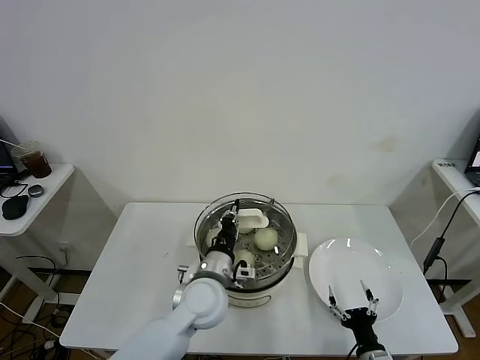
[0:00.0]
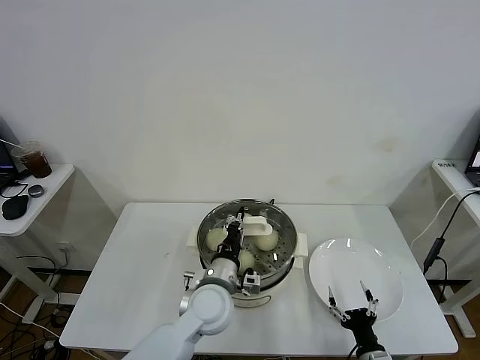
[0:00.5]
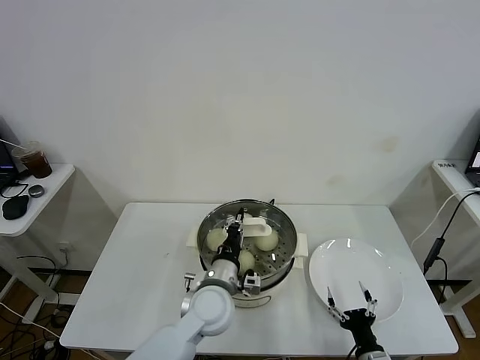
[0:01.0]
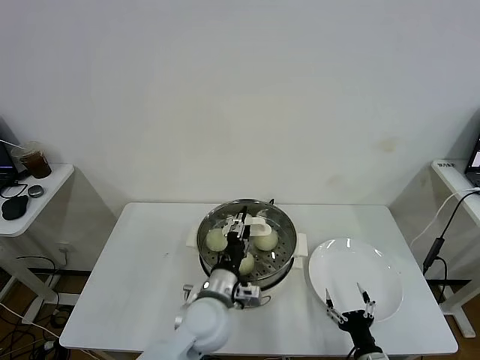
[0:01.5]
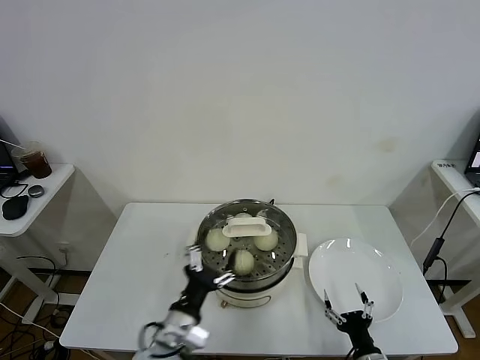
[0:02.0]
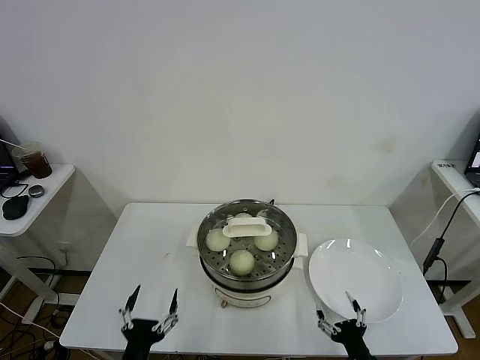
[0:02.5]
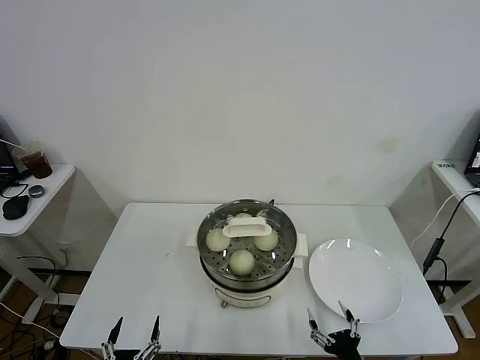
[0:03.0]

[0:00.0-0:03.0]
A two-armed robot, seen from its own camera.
Task of the whole recording: take steamed baozi put them in steamer.
0:00.0 to 0:01.5: The left gripper opens its fingers.
0:01.5 to 0:03.0: The left gripper travels backward, to the left and downward by approximately 30 cm, and opens its fingers, while the right gripper moves some 5 cm.

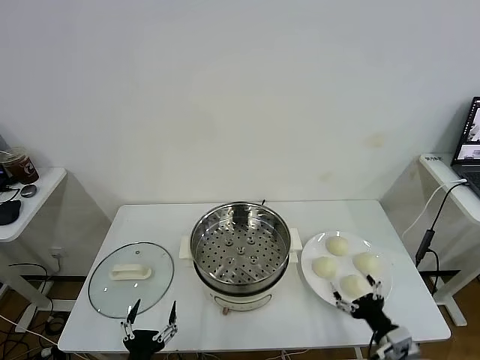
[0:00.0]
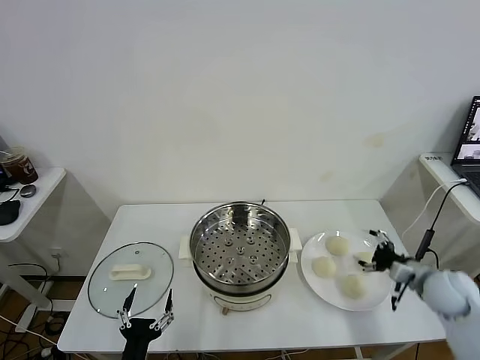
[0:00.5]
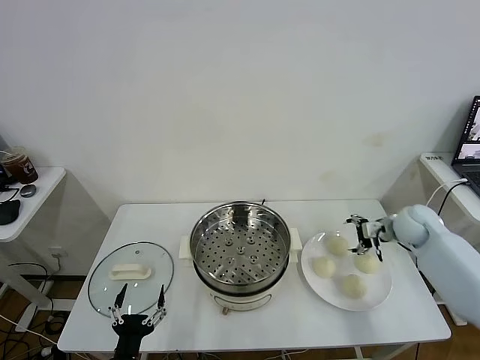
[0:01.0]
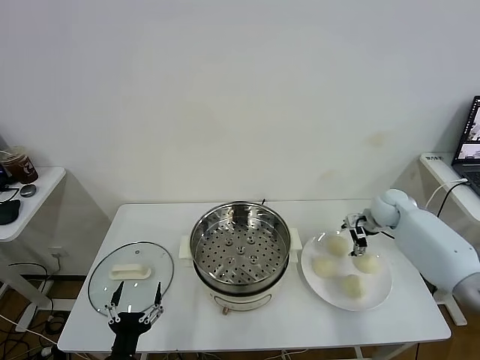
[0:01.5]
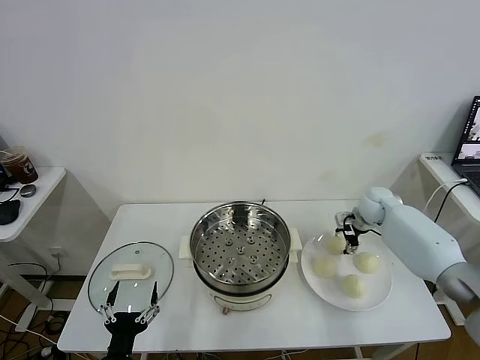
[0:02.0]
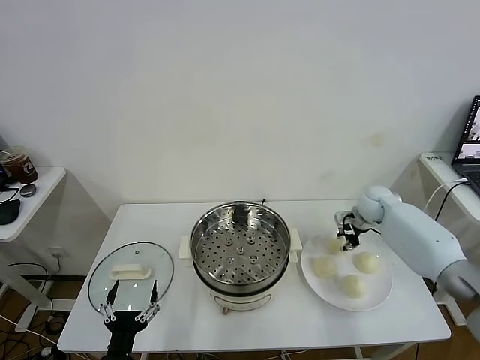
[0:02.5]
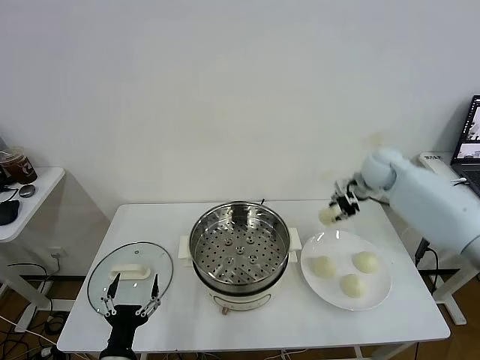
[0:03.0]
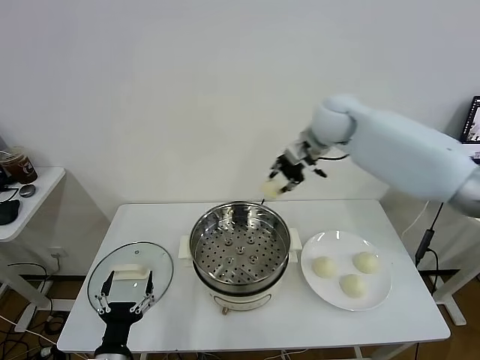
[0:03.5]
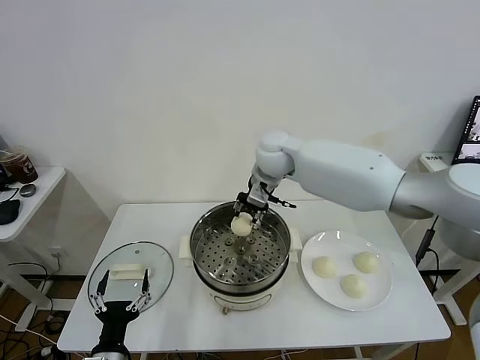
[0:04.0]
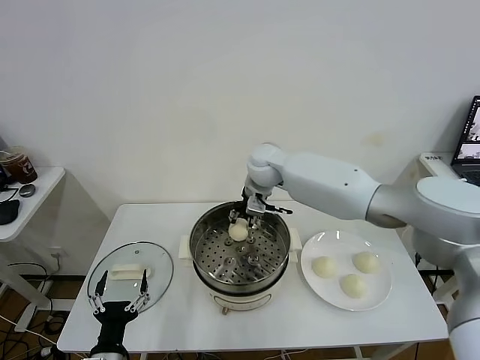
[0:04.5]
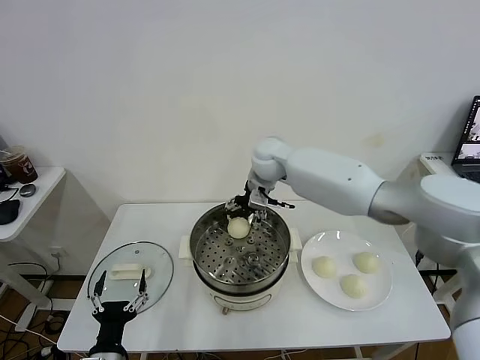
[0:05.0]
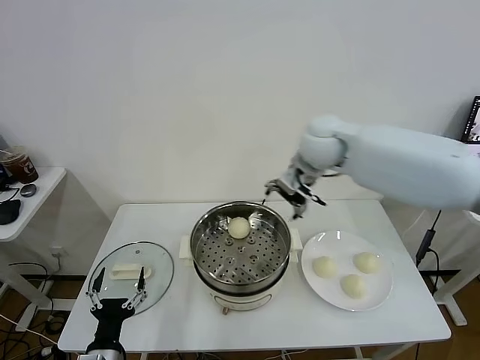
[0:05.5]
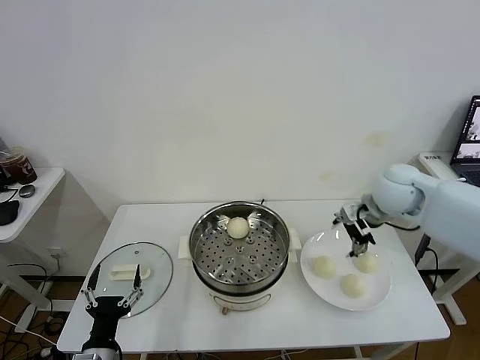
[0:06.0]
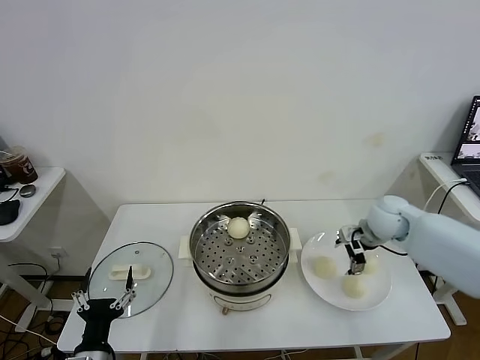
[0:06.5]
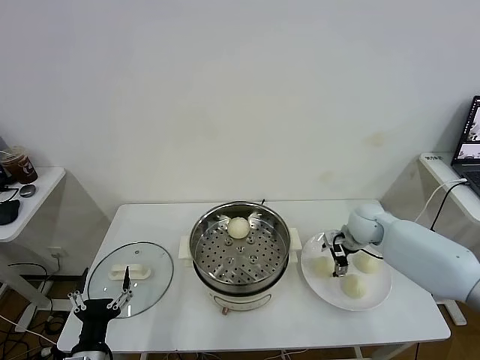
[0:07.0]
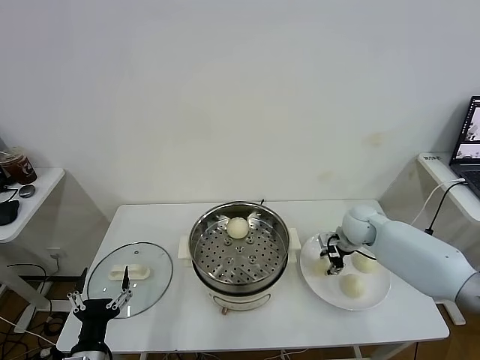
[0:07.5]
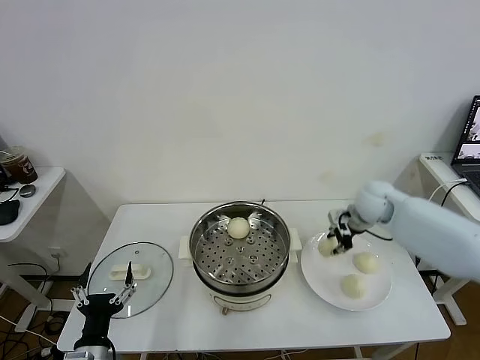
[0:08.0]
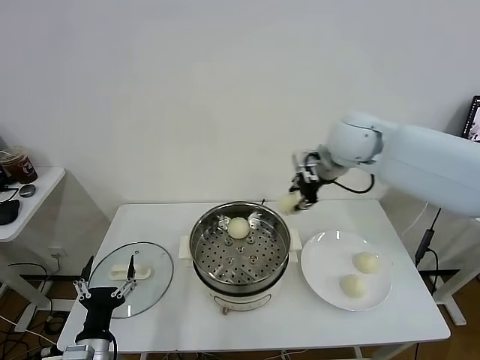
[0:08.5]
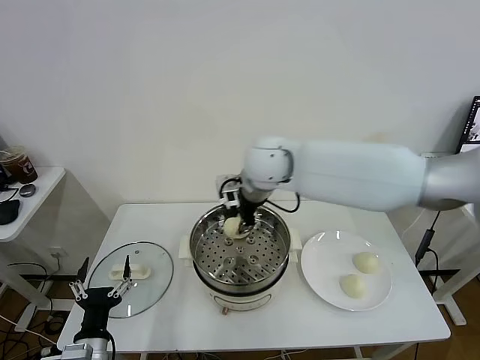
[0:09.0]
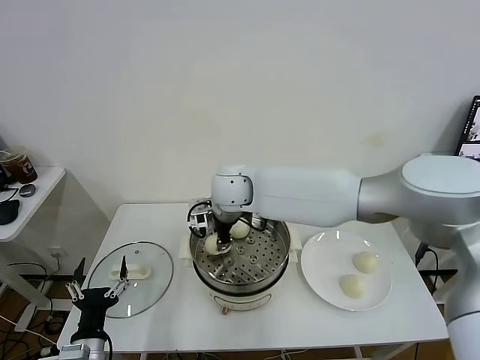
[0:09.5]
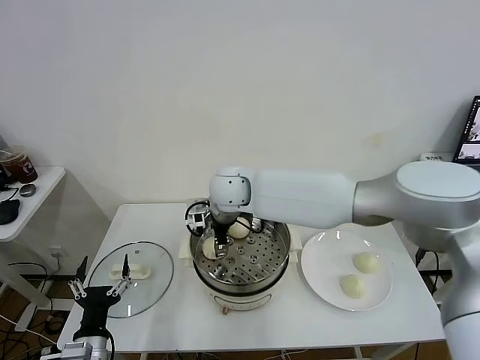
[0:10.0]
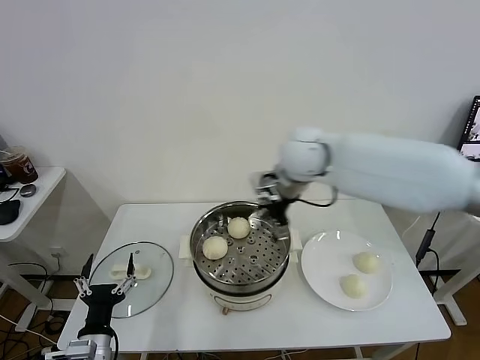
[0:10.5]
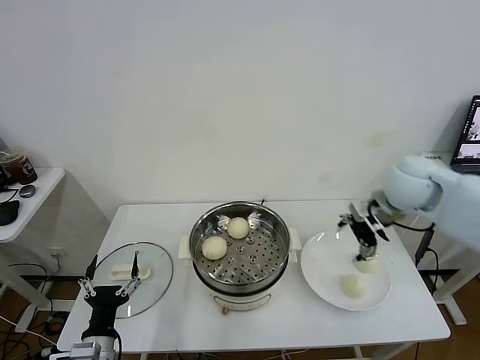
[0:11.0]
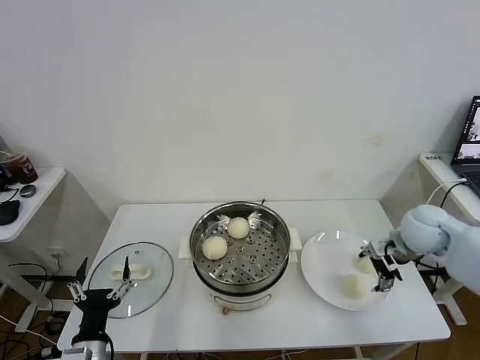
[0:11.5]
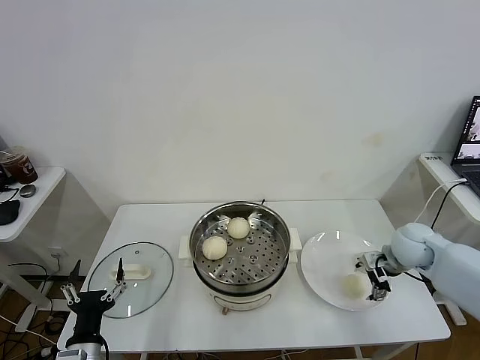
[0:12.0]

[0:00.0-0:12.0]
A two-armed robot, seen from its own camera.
Task of the whole recording: take steamed baozi put them in steamer.
Step, 0:00.0 to 0:02.0: Grasp the baozi in the plate with right gripper.
Step, 0:02.5 to 0:05.0: Place the baozi on the steamer with right gripper.
Step, 0:05.5 to 0:07.5: Grasp the baozi in the plate with right gripper.
Step, 0:08.0 to 0:10.0: Place the baozi on the steamer with right gripper.
0:02.0 to 0:04.0: The right gripper is displaced to the left and upward by approximately 35 cm, and closes up.
0:04.0 to 0:06.0: The right gripper goes about 25 cm to the right, and opens up.
0:06.0 to 0:08.0: The right gripper heads downward and forward, covering approximately 10 cm, and closes up.
0:08.0 to 0:10.0: The right gripper is displaced to the left by some 35 cm, and opens.
0:10.0 to 0:12.0: The right gripper shifts approximately 40 cm to the right, and opens.

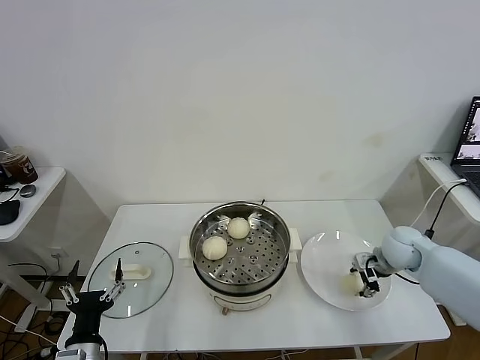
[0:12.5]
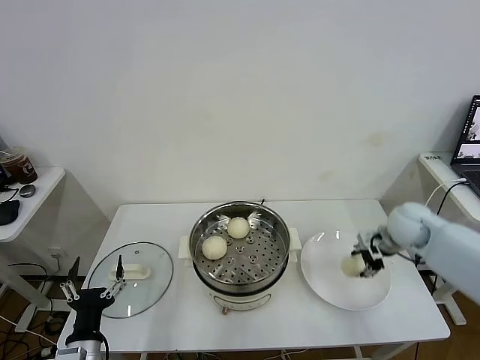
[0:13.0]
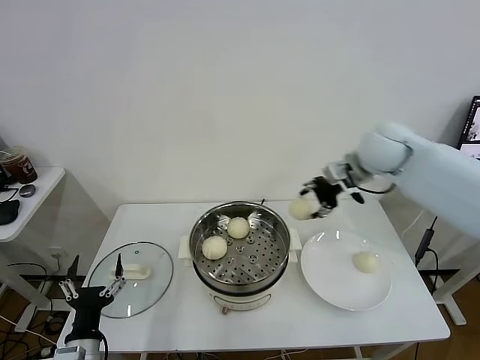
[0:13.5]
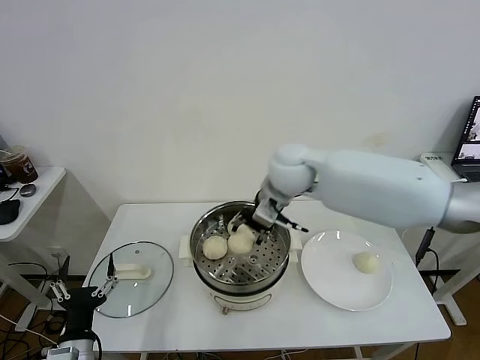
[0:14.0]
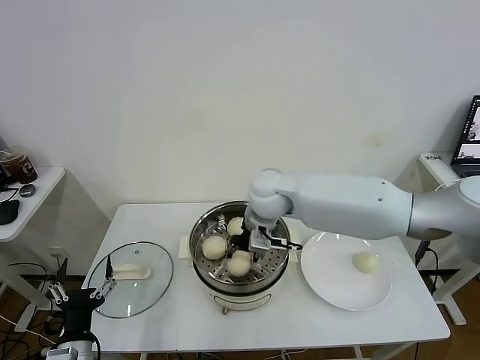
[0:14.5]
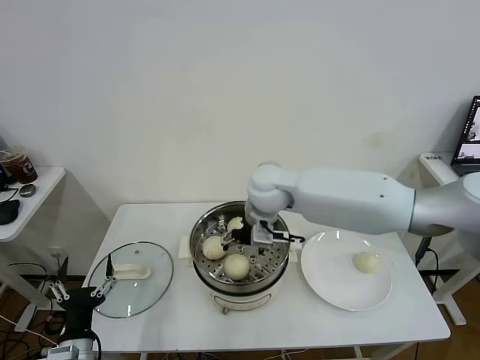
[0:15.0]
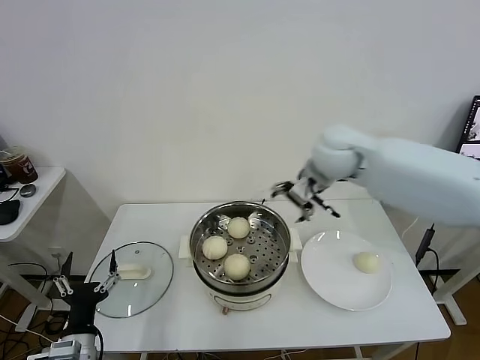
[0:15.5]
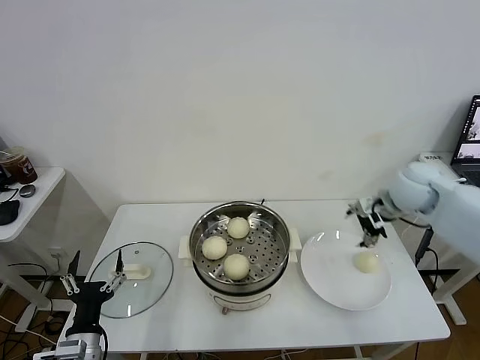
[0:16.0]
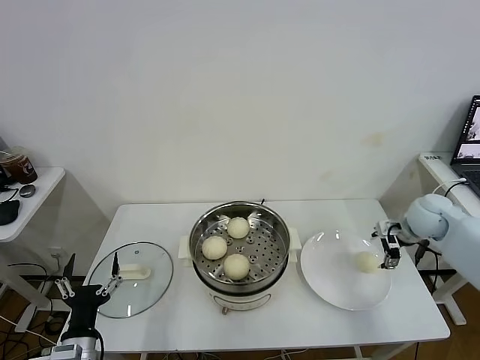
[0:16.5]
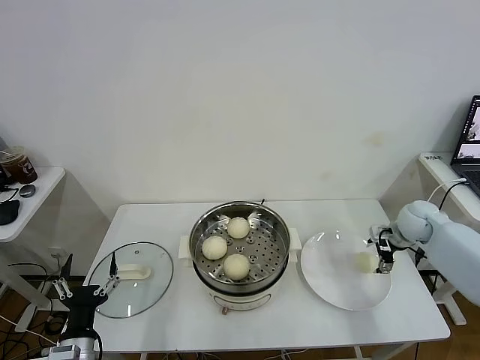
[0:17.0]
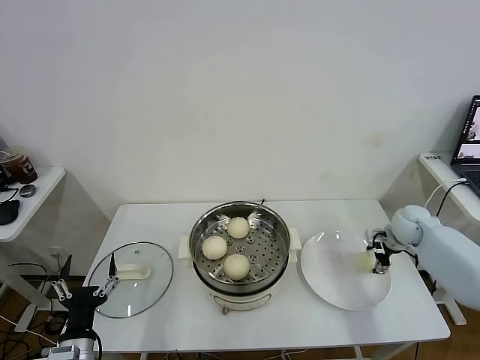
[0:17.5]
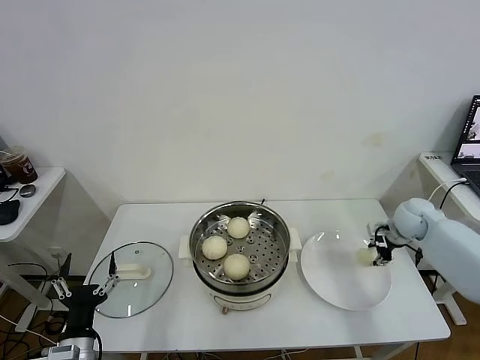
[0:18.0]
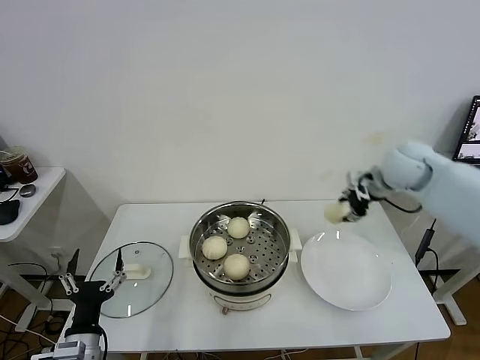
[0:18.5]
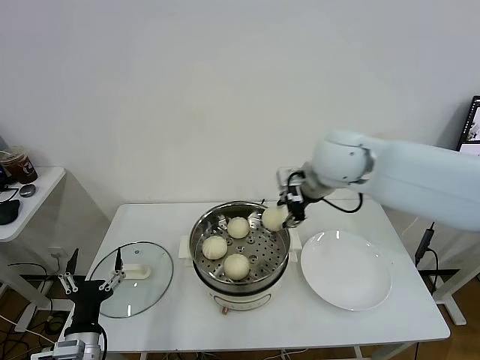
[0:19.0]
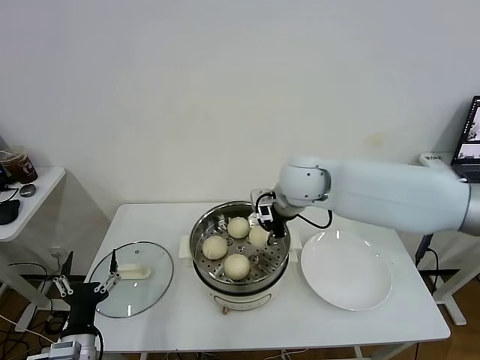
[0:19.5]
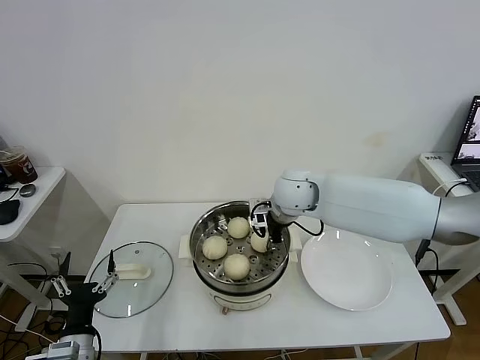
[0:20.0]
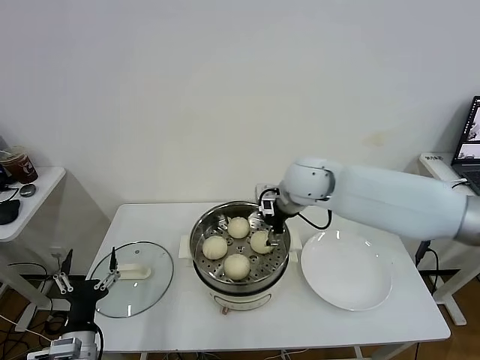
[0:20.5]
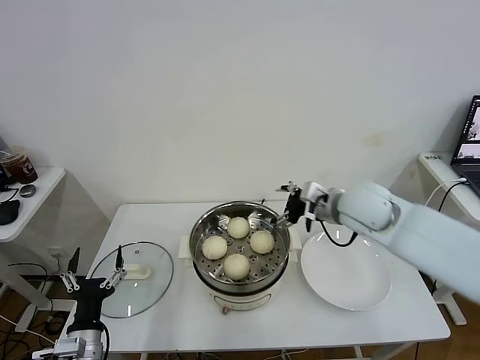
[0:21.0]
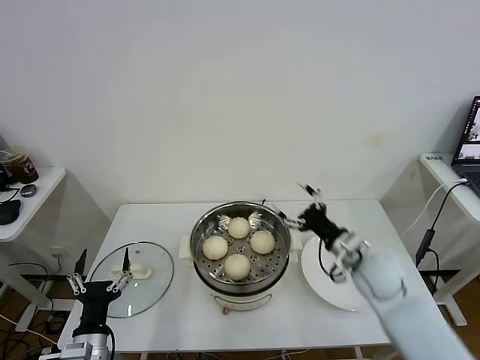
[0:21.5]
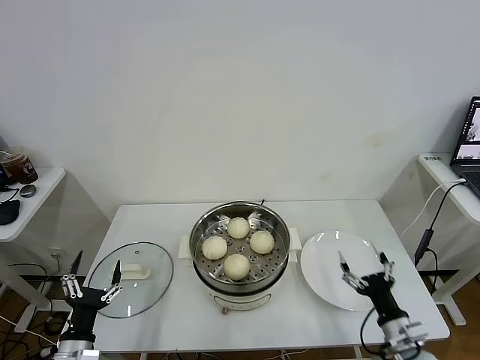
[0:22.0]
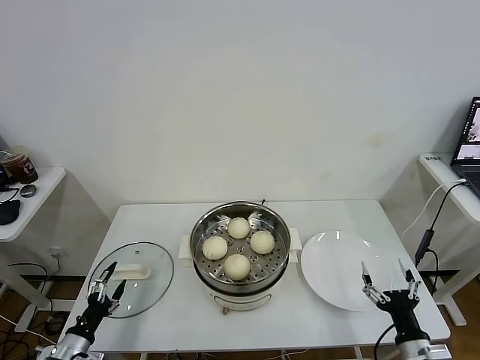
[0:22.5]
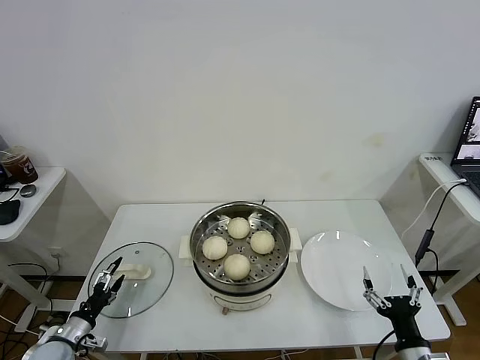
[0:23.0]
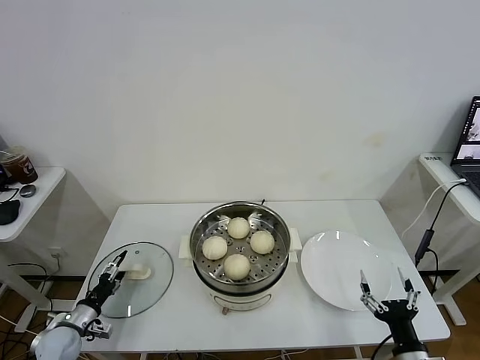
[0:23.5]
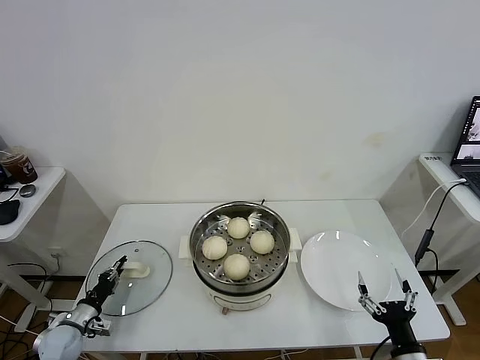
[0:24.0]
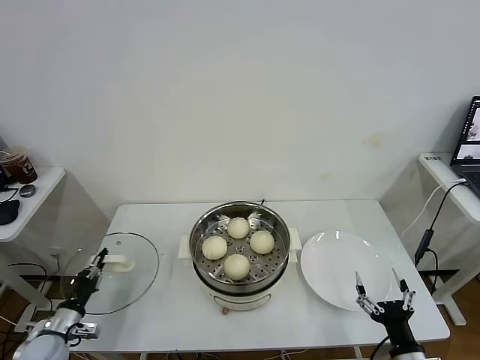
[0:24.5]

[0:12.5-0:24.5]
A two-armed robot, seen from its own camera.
Task of the whole recording: take steamed baozi put them in steamer.
Step, 0:13.0 to 0:15.0: Place the baozi on the steamer with right gripper.
Step, 0:15.5 to 0:17.5: Grasp the baozi in the plate with right gripper.
Step, 0:18.0 to 0:20.5: Place the baozi on the steamer with right gripper.
Step, 0:21.0 to 0:24.0: Grasp the pot lid with left gripper.
0:12.5 to 0:14.5: The right gripper moves to the left and upward, some 35 cm.
0:14.5 to 0:16.5: The right gripper shifts about 35 cm to the right, and opens up.
0:16.5 to 0:18.5: The right gripper is displaced upward and to the left by some 15 cm, and closes its fingers.
0:18.5 to 0:20.5: The right gripper travels to the left by approximately 20 cm, and opens up.
0:20.5 to 0:22.5: The left gripper goes about 10 cm to the left and downward. Meanwhile the right gripper moves backward, downward and to the right, approximately 50 cm.
0:22.5 to 0:24.5: The left gripper shifts some 5 cm forward, and closes its fingers.
